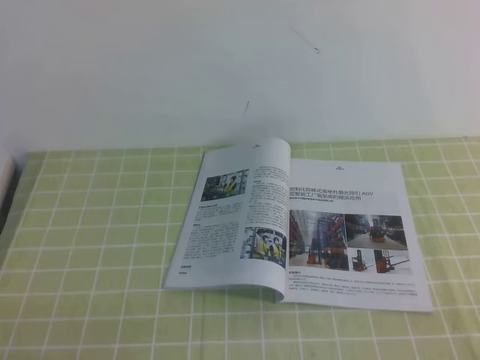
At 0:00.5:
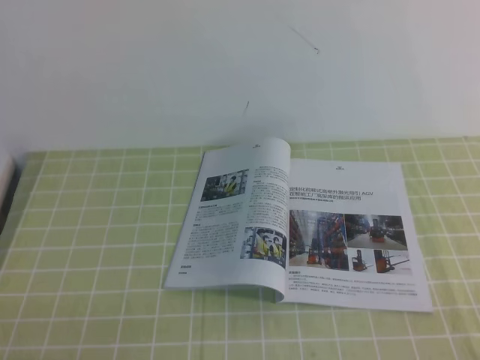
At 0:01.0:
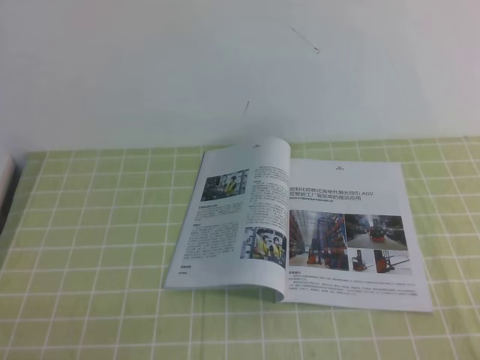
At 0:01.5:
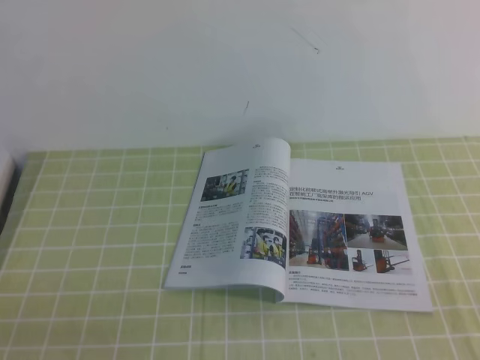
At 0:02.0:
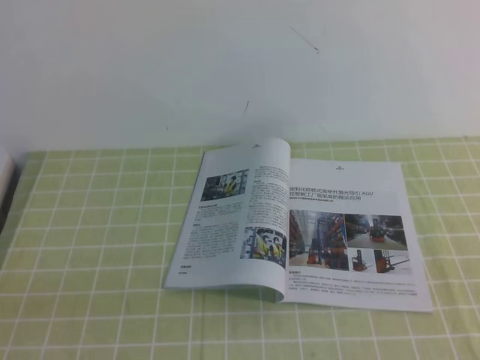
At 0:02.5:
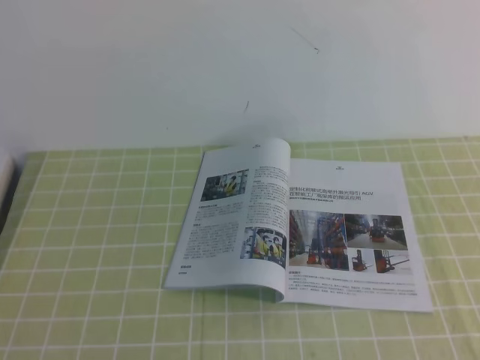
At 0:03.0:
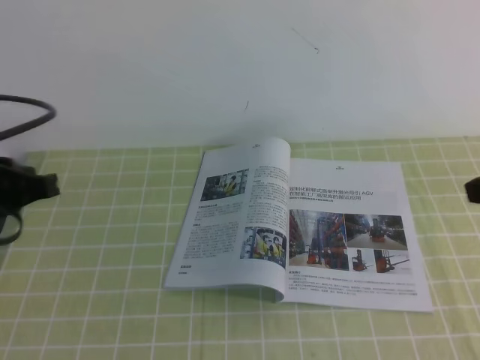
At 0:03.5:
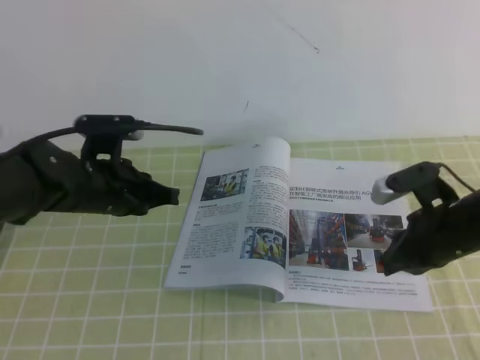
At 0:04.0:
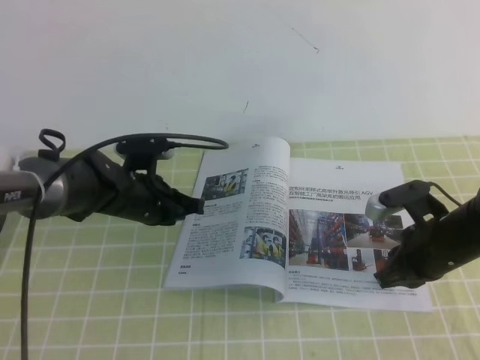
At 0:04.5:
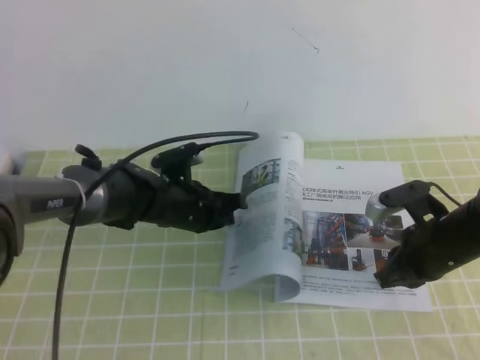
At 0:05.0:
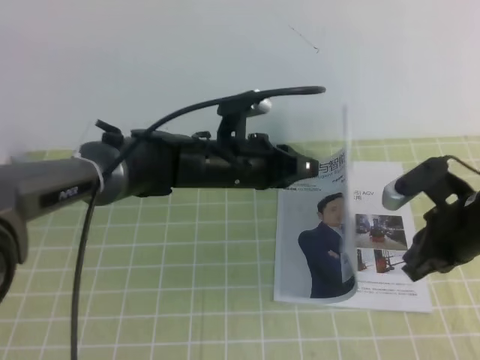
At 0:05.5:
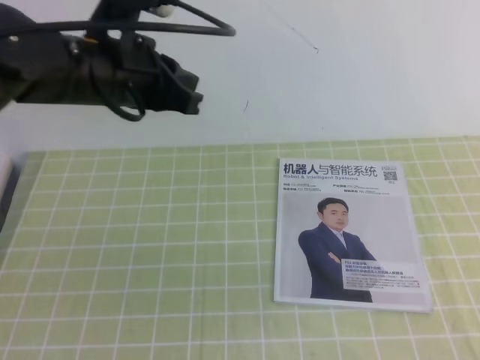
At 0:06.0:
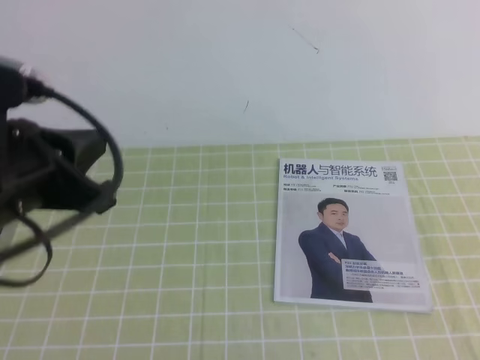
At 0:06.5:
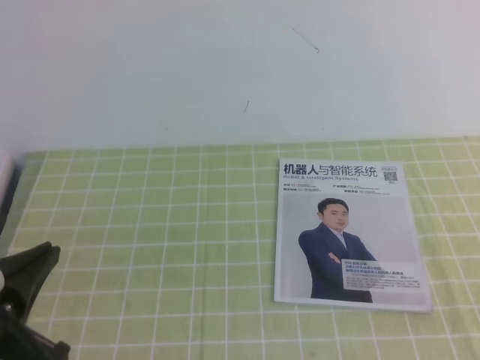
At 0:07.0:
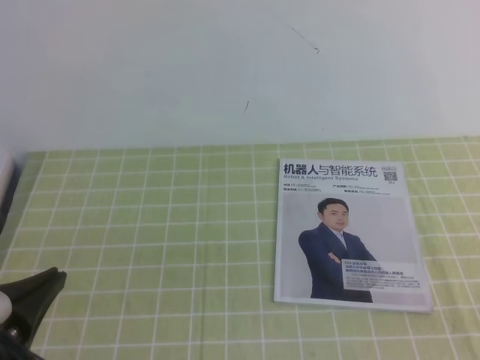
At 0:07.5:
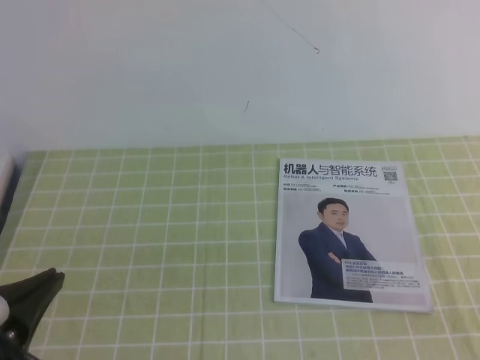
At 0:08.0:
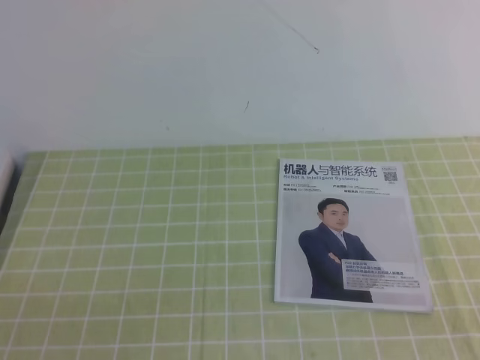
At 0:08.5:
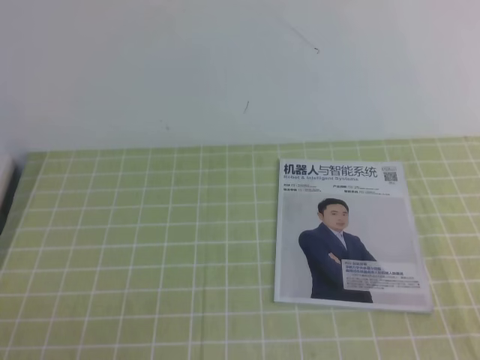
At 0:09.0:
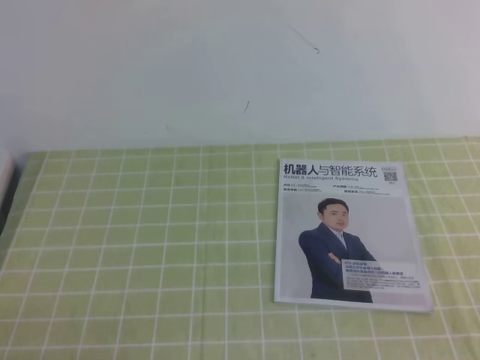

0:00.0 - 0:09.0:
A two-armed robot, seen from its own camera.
Task of the whole recording: on the green tablecloth, hold the book with one hand and close it with the other.
0:02.0 - 0:04.5: The right gripper shifts about 30 cm forward and downward, while the left gripper goes some 40 cm forward and to the right.
0:04.5 - 0:07.0: The right gripper heads backward and upward, covering approximately 30 cm. Meanwhile the left gripper moves backward, to the left and upward, some 35 cm.
0:07.0 - 0:09.0: The left gripper goes some 10 cm downward and backward.
